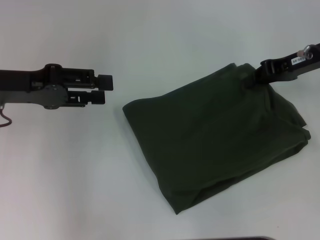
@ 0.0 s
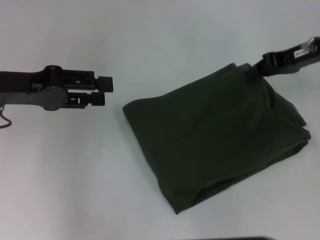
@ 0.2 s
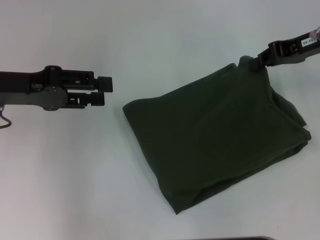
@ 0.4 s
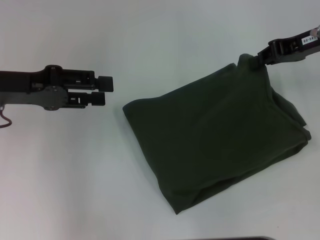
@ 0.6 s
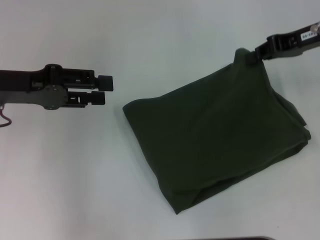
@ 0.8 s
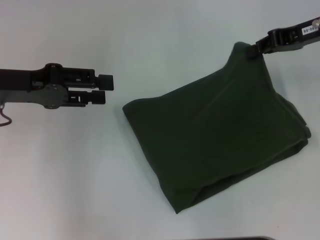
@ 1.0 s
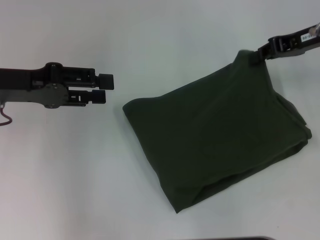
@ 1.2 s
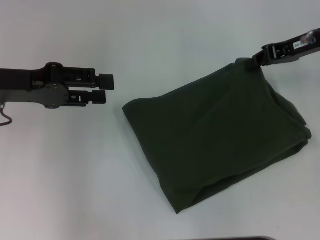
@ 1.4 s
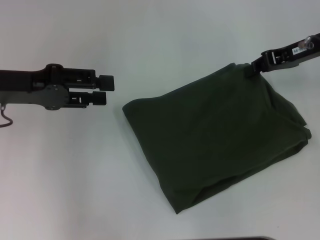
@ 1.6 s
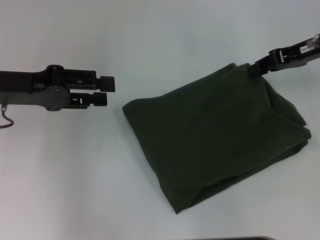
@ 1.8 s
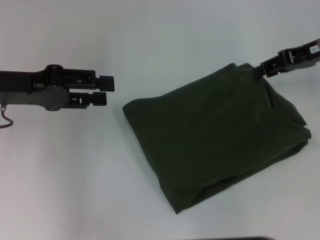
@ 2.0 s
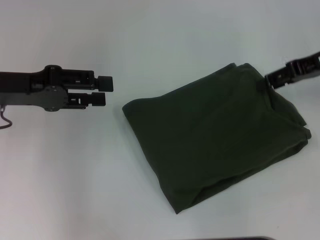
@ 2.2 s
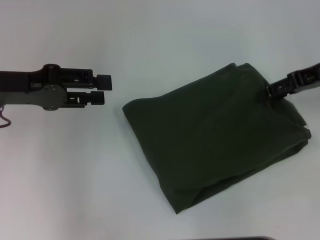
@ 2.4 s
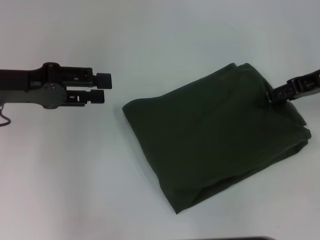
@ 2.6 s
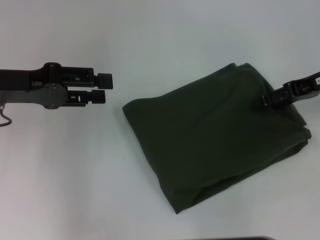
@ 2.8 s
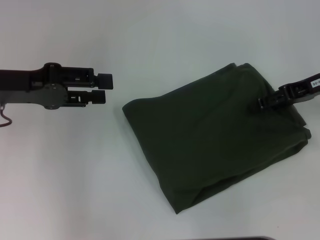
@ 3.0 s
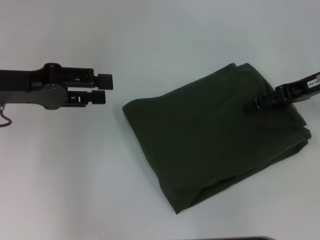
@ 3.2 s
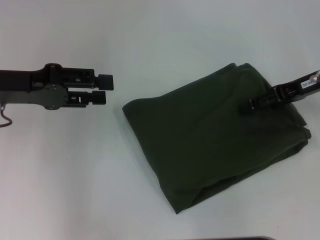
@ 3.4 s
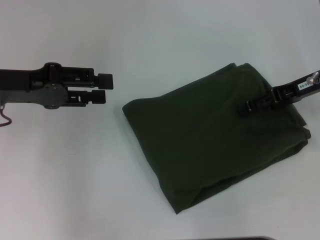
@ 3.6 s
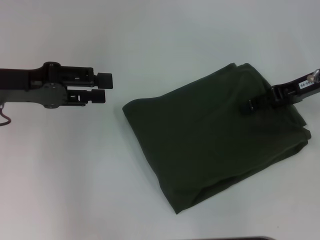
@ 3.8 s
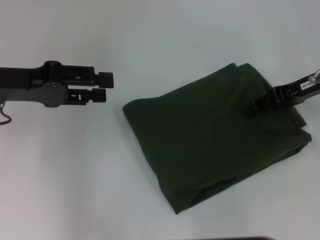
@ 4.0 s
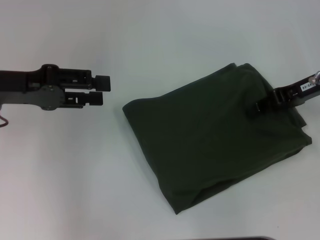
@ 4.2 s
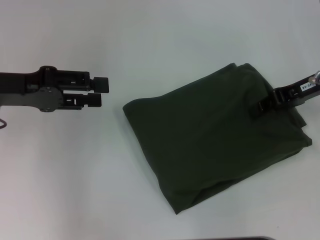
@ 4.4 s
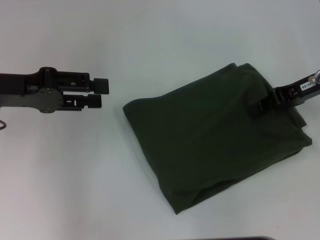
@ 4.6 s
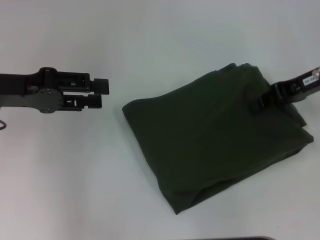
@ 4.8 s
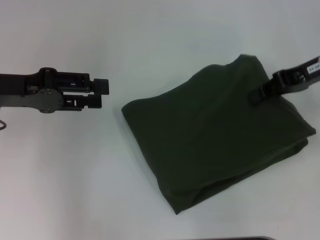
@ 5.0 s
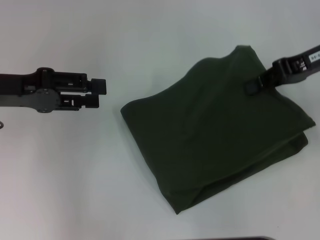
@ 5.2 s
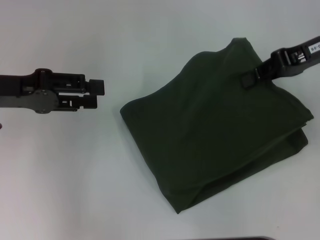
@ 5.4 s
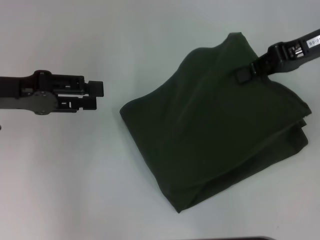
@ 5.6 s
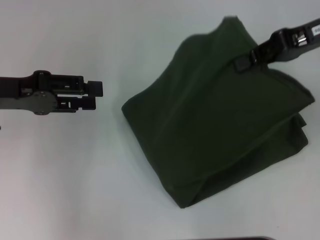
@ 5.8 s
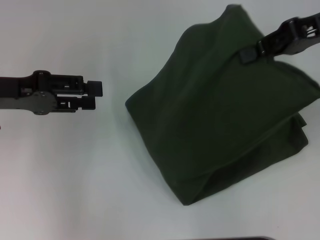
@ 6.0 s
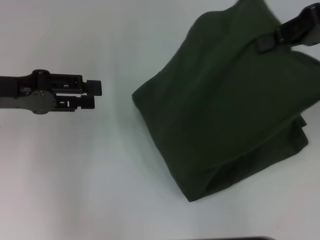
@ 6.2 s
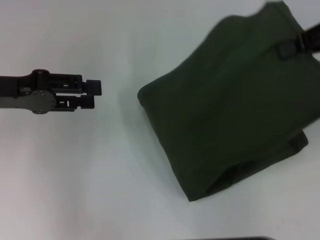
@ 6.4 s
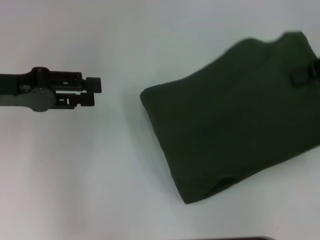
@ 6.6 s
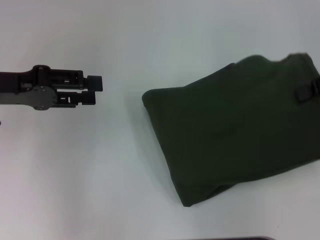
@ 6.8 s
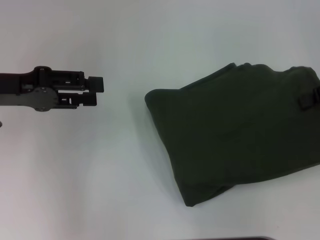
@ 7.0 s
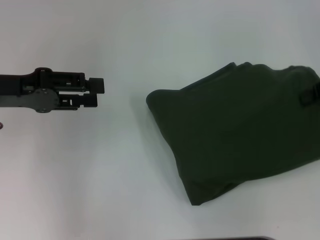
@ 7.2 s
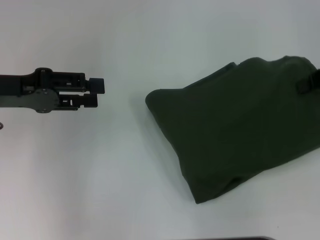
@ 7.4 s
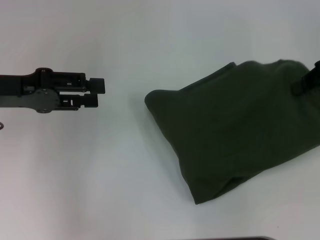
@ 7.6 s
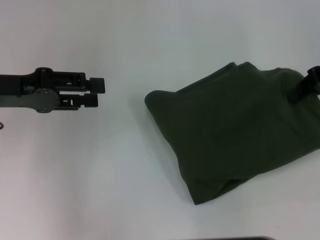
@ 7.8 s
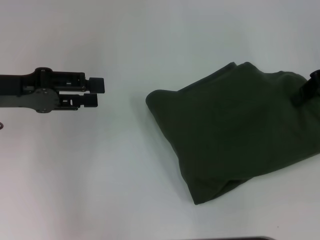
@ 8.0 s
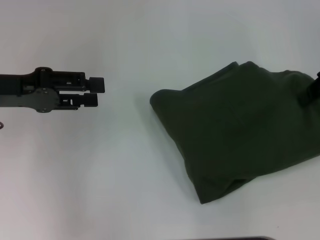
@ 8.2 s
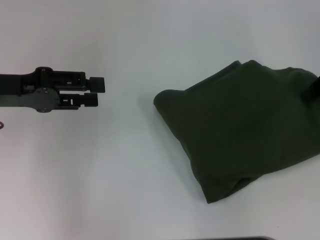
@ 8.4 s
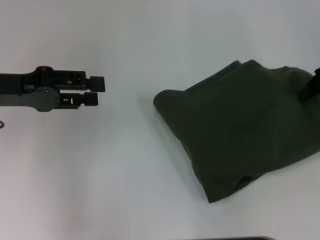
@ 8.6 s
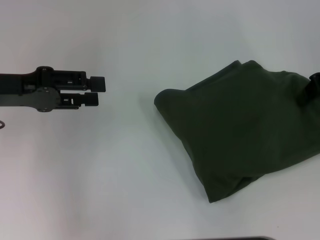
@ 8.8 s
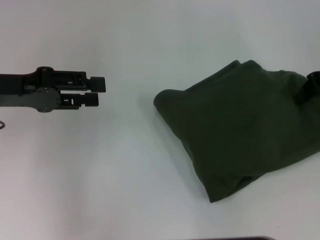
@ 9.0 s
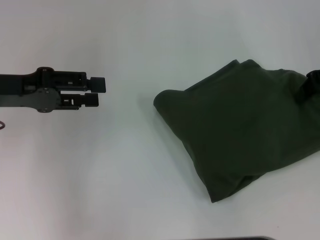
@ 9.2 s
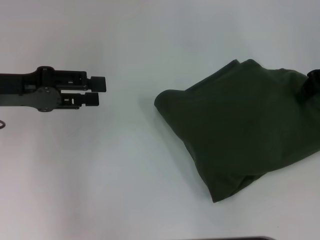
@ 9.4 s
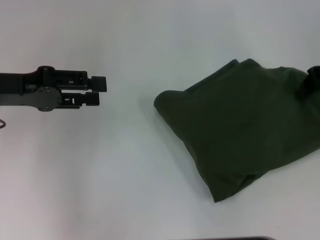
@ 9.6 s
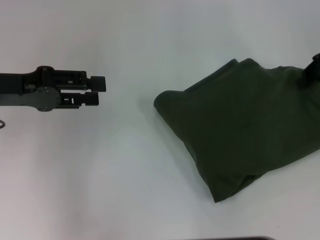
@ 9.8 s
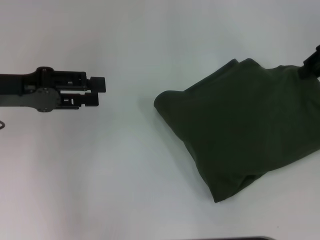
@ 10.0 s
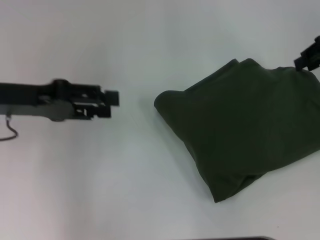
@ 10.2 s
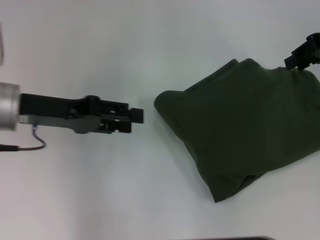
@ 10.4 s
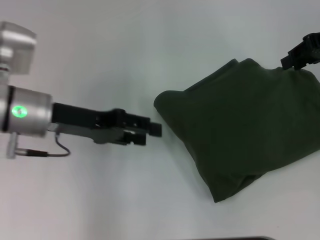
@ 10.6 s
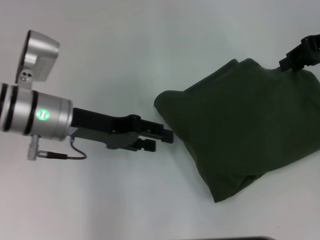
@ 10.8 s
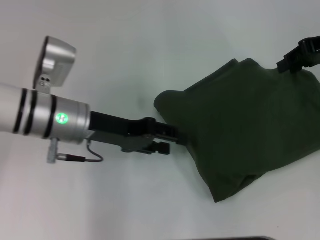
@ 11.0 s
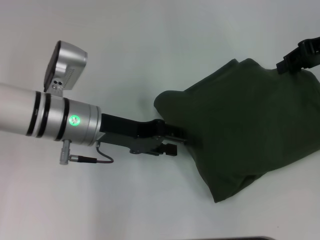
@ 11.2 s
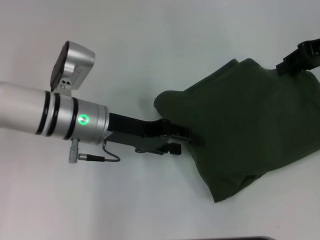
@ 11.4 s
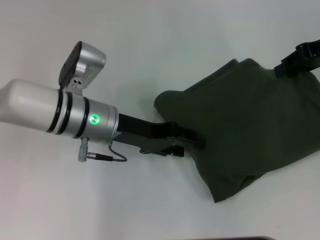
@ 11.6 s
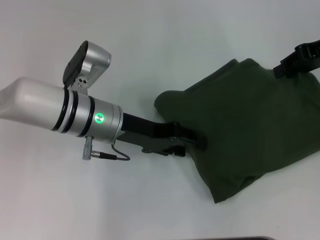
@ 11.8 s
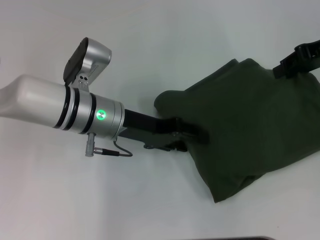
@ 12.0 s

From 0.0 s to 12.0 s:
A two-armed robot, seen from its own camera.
From 0.0 s to 1.6 s: The grippers move only a little.
From 1.6 s to 3.0 s: The right gripper opens.
From 3.0 s to 4.4 s: The right gripper closes up.
From 4.4 s to 6.0 s: The right gripper moves upward, roughly 10 cm.
From 6.0 s to 7.6 s: The right gripper is displaced to the right and downward by some 10 cm.
From 7.6 s to 9.0 s: There are only small adjustments of the grippers.
From 9.0 s to 10.4 s: The left gripper moves roughly 5 cm; the right gripper changes place by roughly 5 cm.
From 10.4 s to 12.0 s: The left gripper shifts approximately 15 cm to the right and downward.

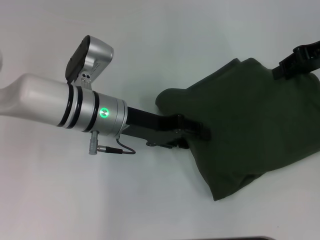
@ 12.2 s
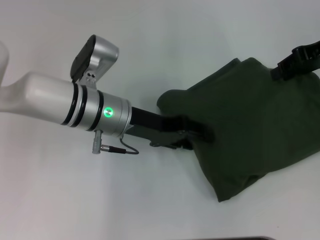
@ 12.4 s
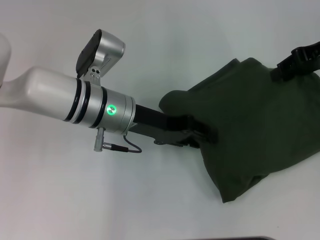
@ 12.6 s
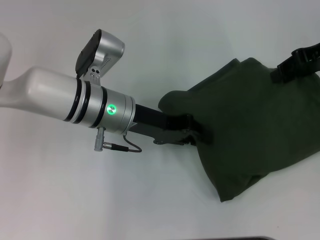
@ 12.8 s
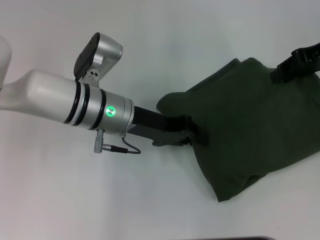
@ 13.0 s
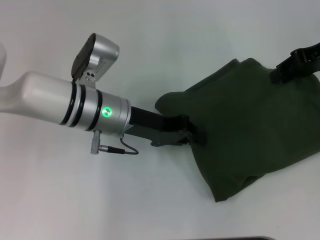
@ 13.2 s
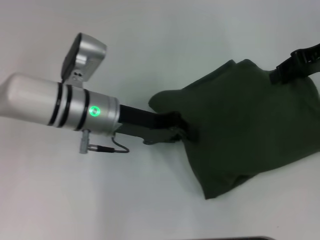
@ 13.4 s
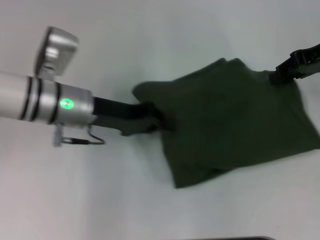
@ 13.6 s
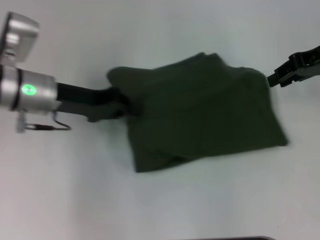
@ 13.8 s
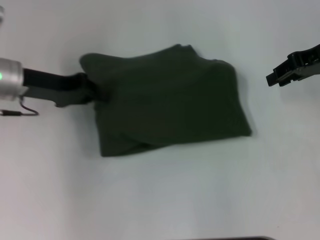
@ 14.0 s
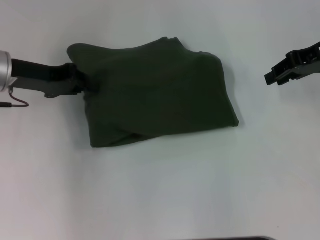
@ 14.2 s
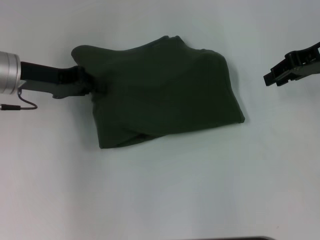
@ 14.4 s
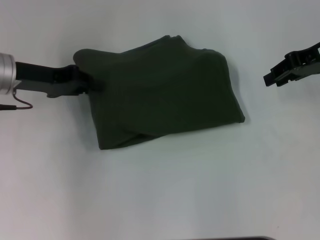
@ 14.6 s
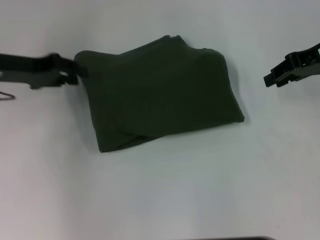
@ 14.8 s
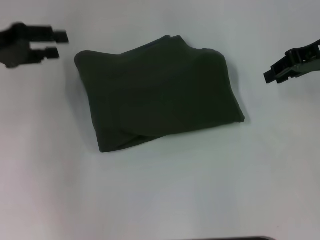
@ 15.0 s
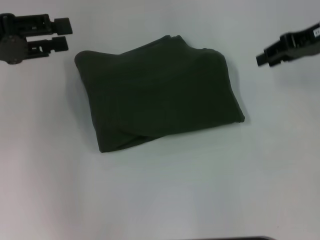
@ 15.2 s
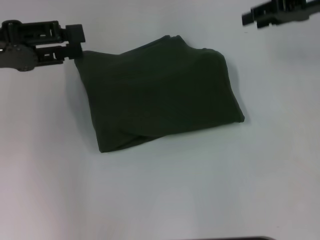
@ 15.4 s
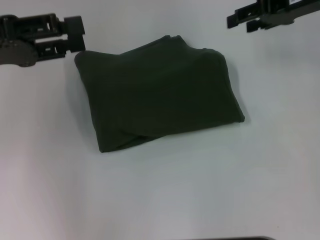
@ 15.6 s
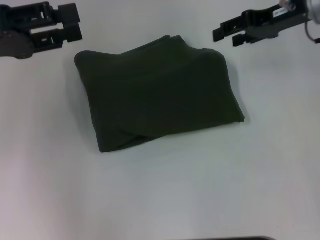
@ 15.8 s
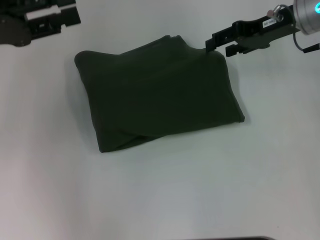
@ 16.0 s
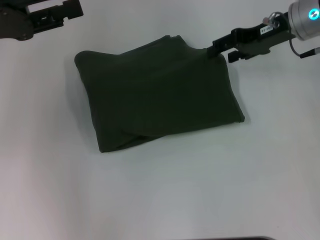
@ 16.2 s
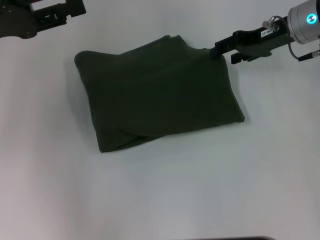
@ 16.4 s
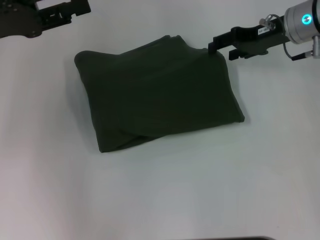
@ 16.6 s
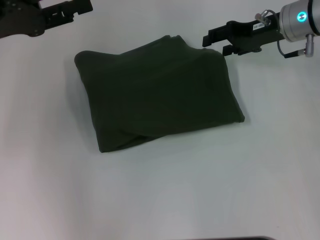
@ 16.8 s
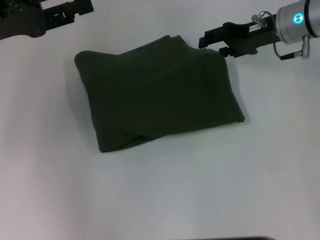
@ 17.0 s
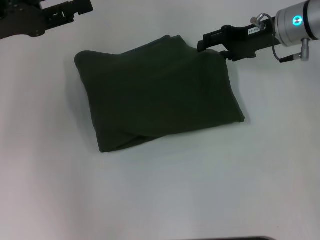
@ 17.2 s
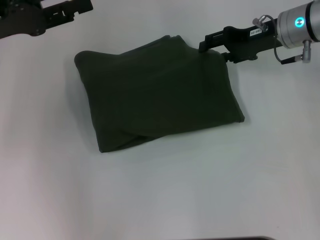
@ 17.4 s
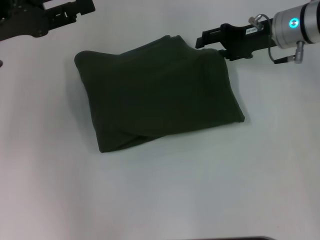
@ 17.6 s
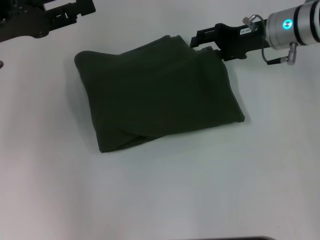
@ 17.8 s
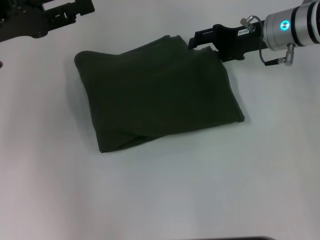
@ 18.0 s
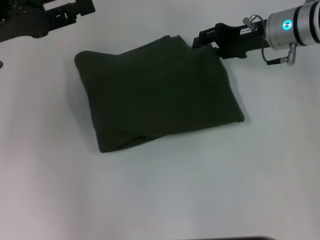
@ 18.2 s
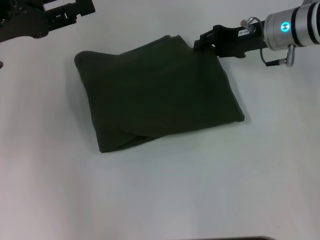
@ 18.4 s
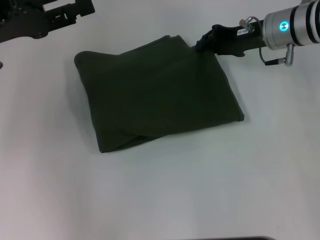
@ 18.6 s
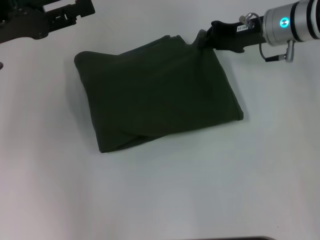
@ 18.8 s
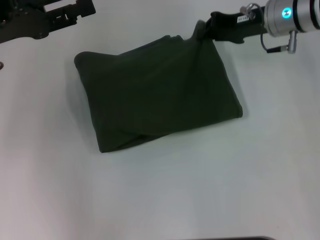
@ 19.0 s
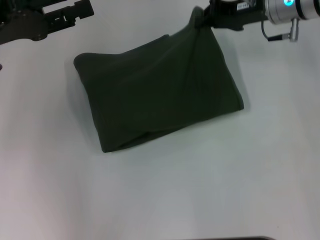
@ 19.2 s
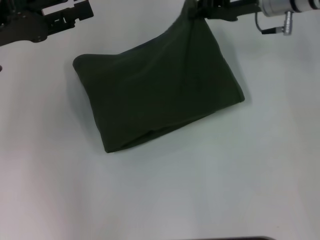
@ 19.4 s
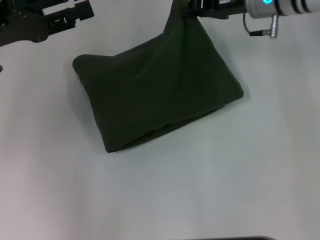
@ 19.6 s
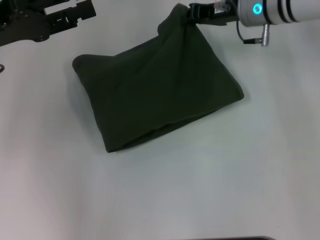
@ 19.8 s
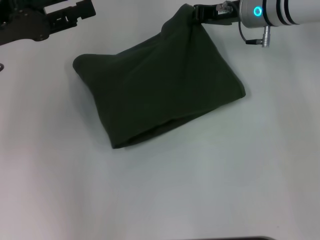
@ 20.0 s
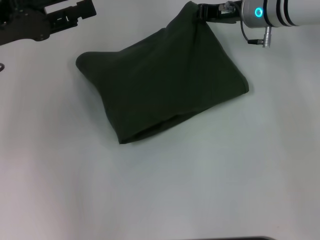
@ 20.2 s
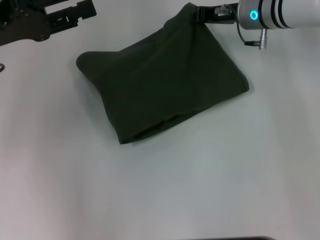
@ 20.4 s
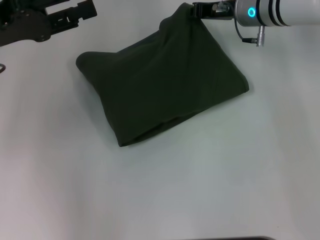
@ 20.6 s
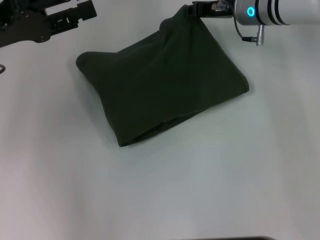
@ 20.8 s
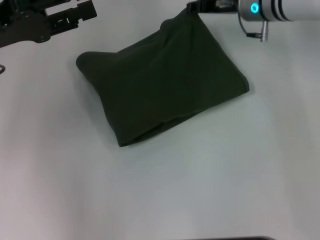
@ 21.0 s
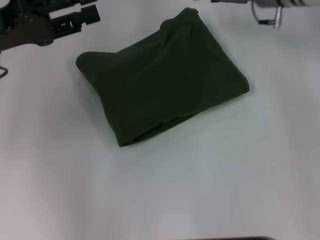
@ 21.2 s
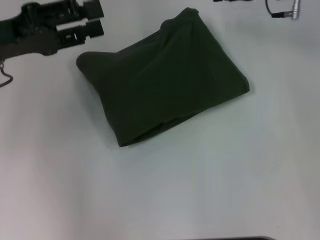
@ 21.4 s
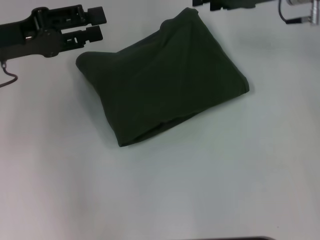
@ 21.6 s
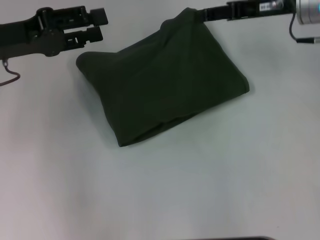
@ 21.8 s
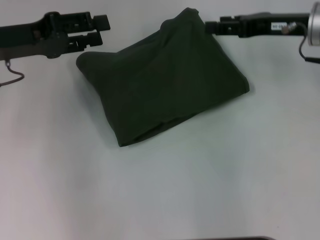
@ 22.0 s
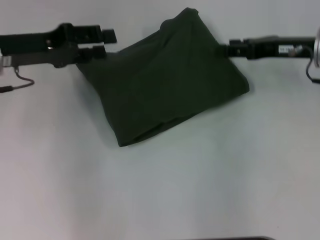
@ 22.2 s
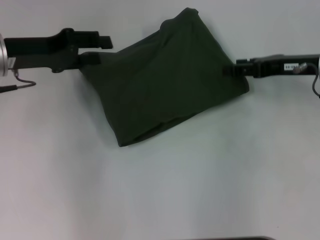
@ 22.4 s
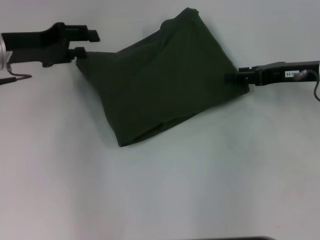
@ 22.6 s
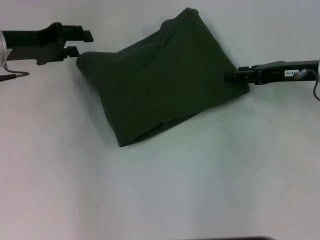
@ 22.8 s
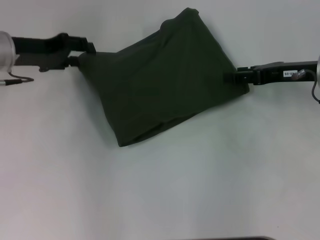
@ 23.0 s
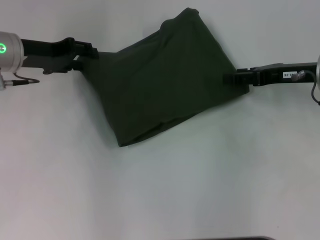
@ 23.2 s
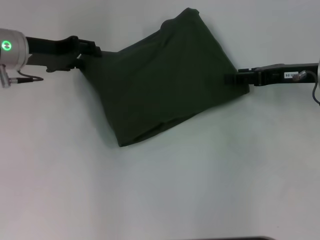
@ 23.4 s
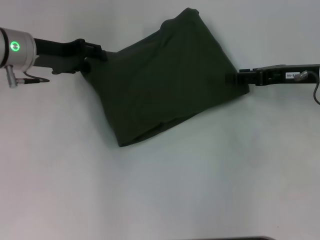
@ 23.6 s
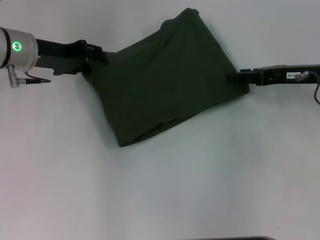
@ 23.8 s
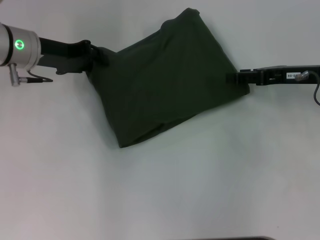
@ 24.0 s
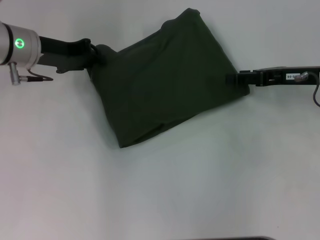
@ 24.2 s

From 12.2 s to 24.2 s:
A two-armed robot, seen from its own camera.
From 12.2 s to 13.8 s: The left gripper travels to the left by roughly 10 cm, and closes up.
From 13.8 s to 15.2 s: The left gripper travels to the left and upward by roughly 15 cm, and opens up.
From 15.2 s to 16.6 s: The right gripper is displaced downward and to the left by some 10 cm.
From 16.6 s to 18.2 s: The grippers make only small movements.
From 18.2 s to 19.8 s: The right gripper shifts by some 5 cm, and closes up.
From 19.8 s to 21.2 s: The grippers stay close to where they were, moving slightly.
From 21.2 s to 22.6 s: The right gripper shifts some 15 cm backward and to the right, and opens its fingers. The left gripper travels forward by some 5 cm.
From 22.6 s to 24.2 s: The left gripper shifts by approximately 5 cm, and closes.
